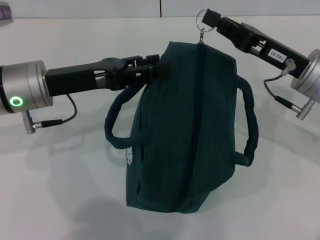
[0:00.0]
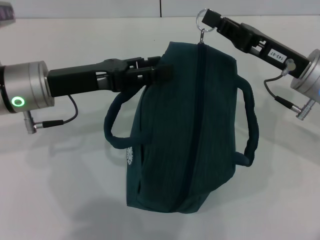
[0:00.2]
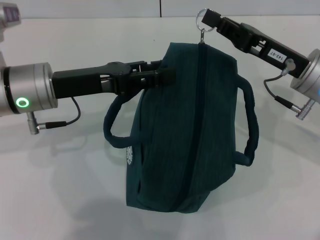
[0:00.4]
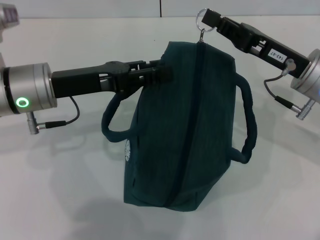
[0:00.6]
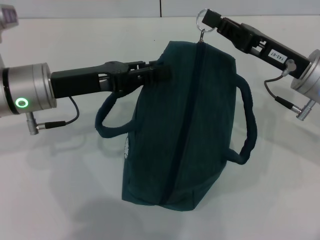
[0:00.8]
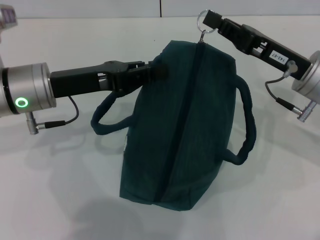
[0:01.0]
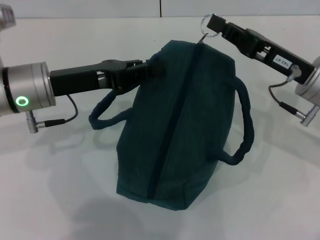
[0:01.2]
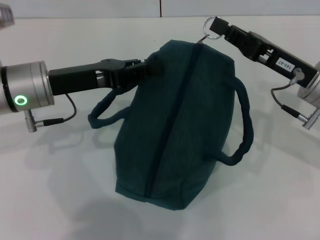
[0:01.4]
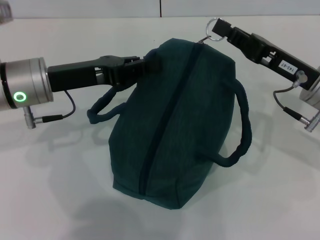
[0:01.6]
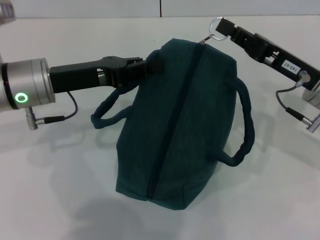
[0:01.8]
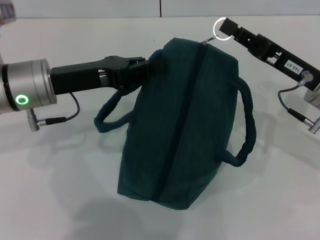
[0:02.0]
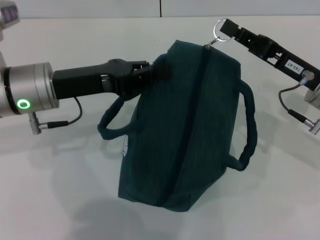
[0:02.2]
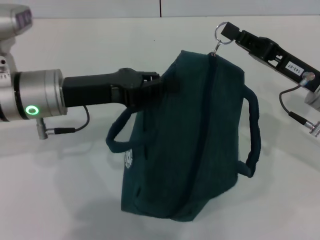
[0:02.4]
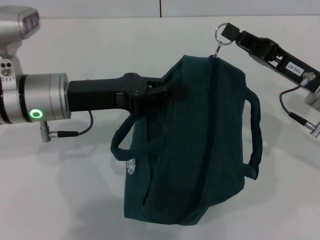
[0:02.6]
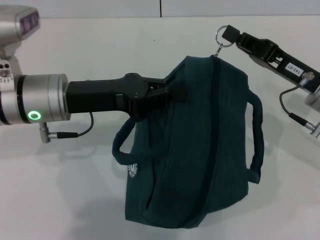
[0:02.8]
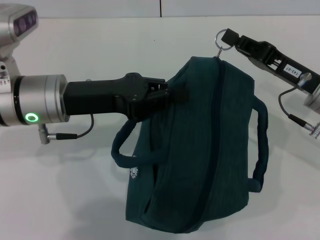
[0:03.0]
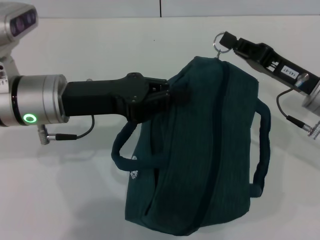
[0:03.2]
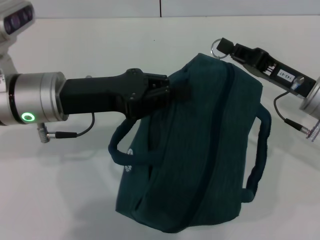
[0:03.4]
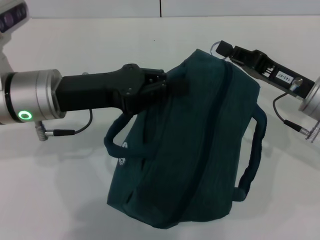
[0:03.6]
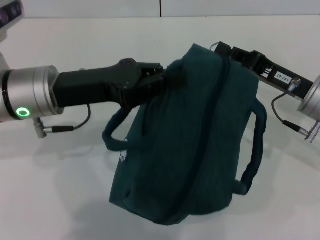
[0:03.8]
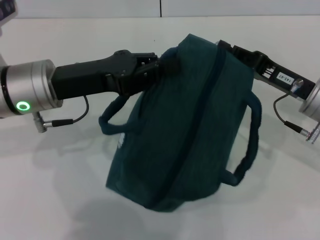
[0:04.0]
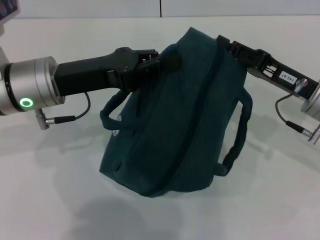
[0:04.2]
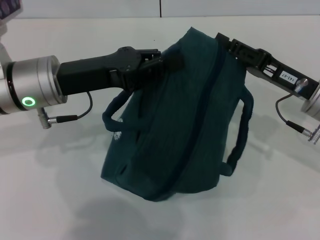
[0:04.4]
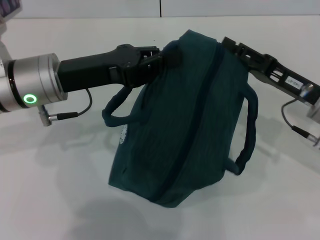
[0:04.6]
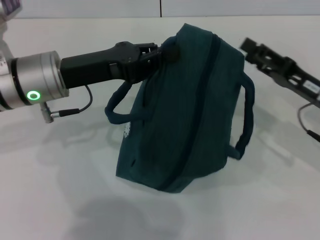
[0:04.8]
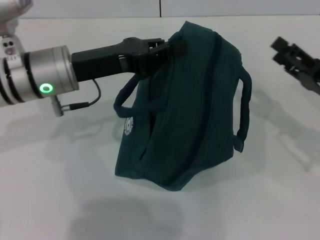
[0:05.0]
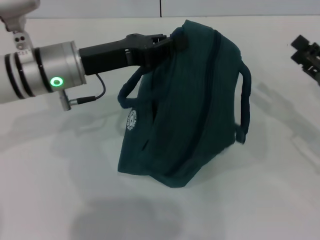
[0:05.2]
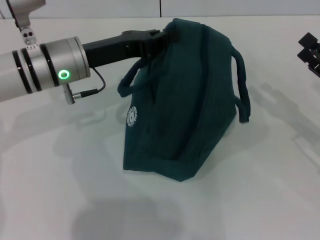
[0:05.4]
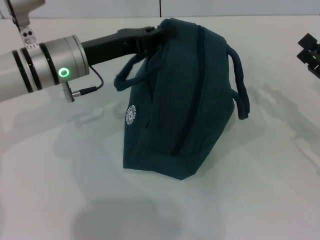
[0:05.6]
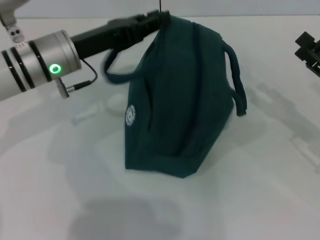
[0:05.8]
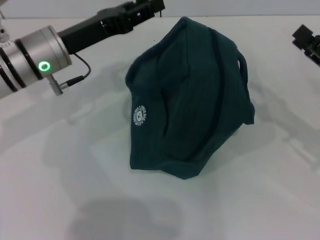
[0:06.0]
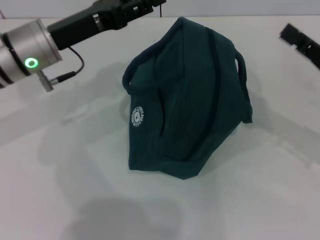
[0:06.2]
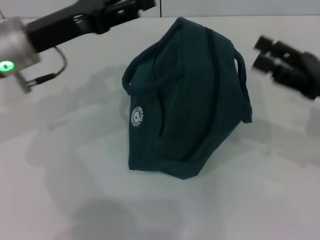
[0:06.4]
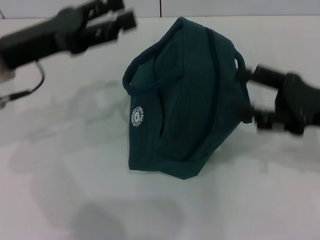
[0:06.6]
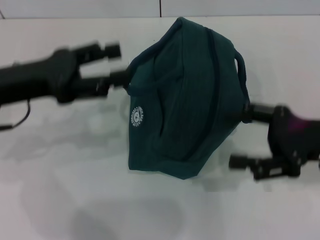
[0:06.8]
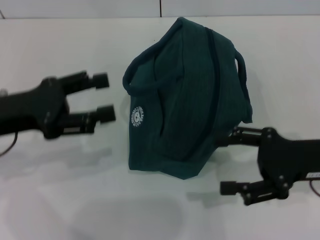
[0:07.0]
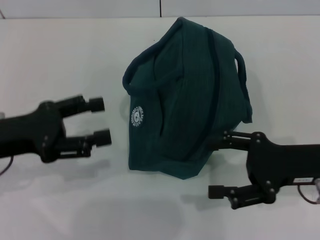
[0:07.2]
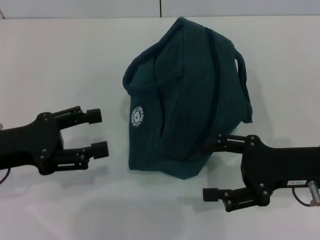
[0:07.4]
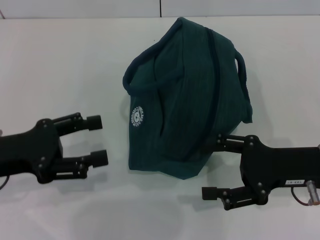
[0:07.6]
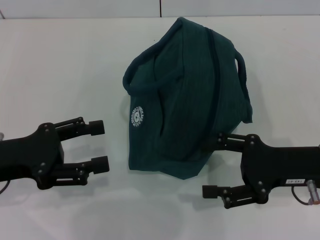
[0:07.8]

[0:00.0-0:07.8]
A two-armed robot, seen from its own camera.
Step, 0:00.0 to 0:04.6: Zip up the lunch bag with your right hand.
Step, 0:04.8 to 0:06.0: Hold the lunch bag with your left hand.
0:00.0 to 0:01.6: The left gripper closes up.
0:03.2 to 0:04.6: The right gripper opens up.
0:04.6 to 0:06.2: The left gripper opens, while the right gripper heads to the right, covering roughly 5 cm.
0:06.2 to 0:07.8: The right gripper moves to the left, approximately 5 cm. Meanwhile the left gripper goes roughly 15 cm backward and to the left.
